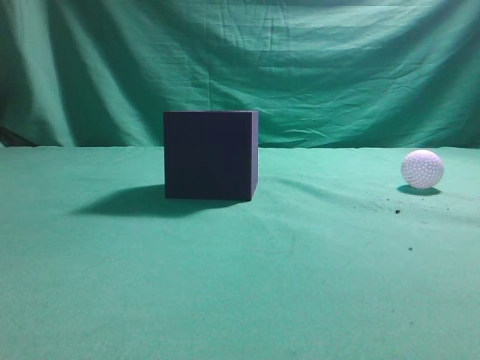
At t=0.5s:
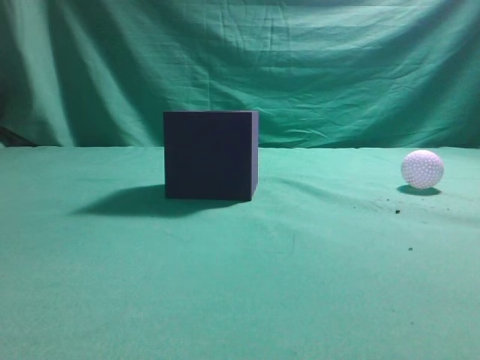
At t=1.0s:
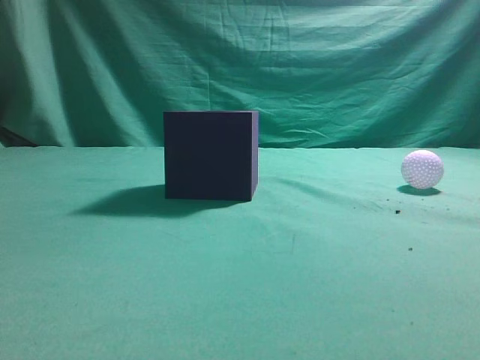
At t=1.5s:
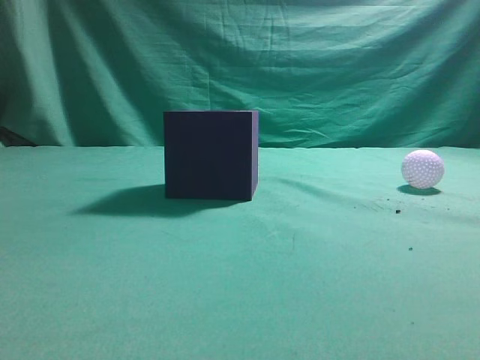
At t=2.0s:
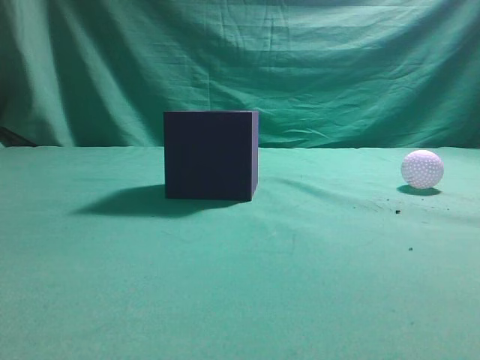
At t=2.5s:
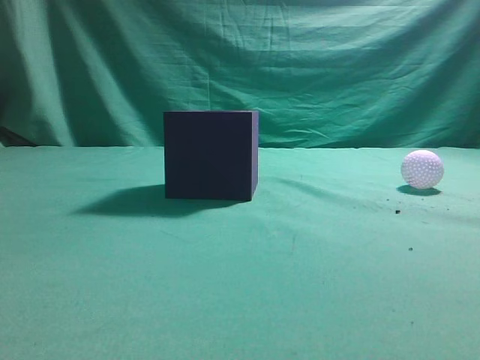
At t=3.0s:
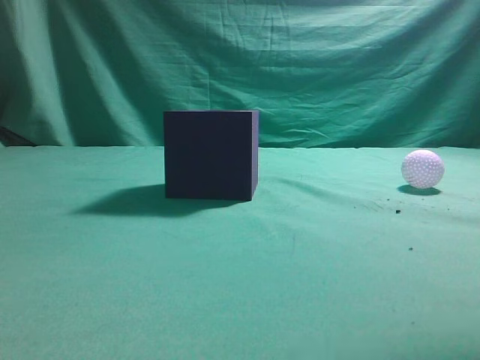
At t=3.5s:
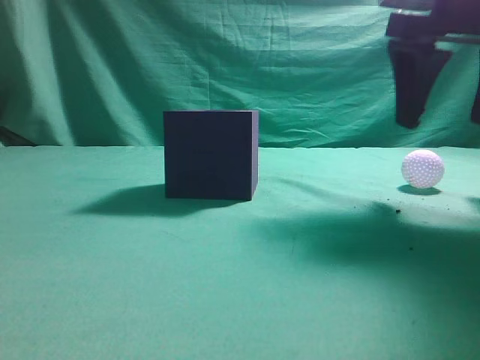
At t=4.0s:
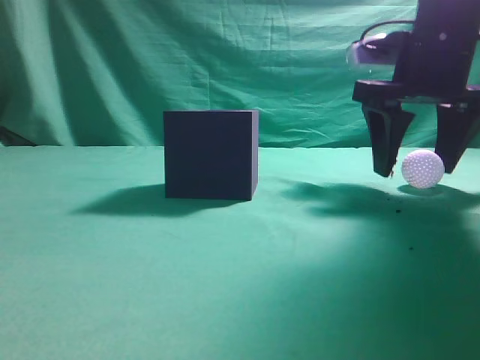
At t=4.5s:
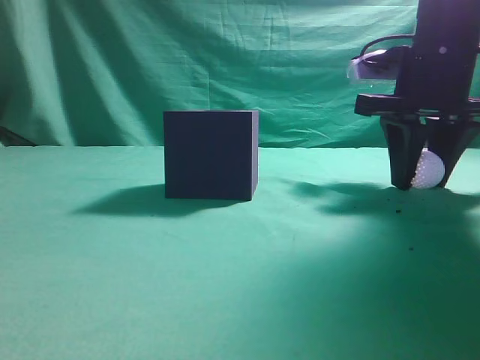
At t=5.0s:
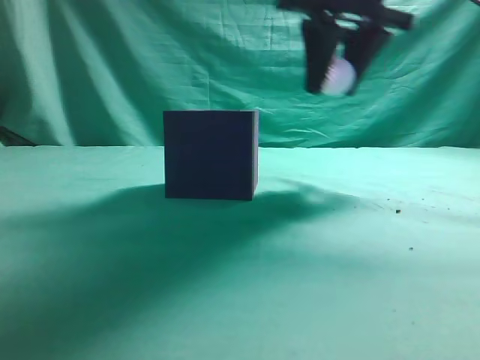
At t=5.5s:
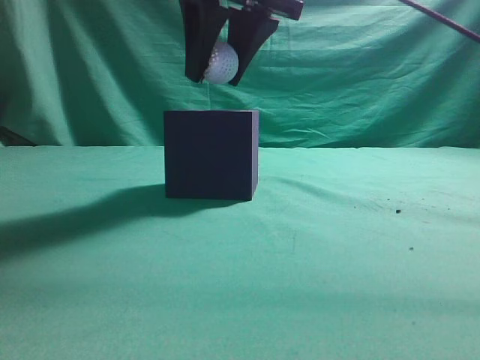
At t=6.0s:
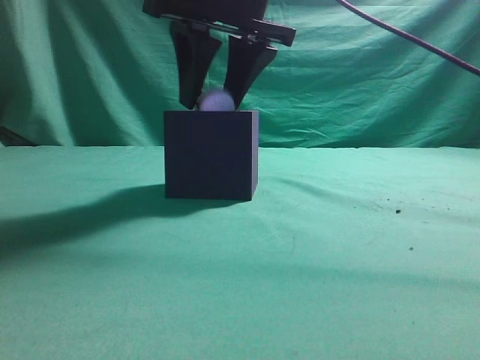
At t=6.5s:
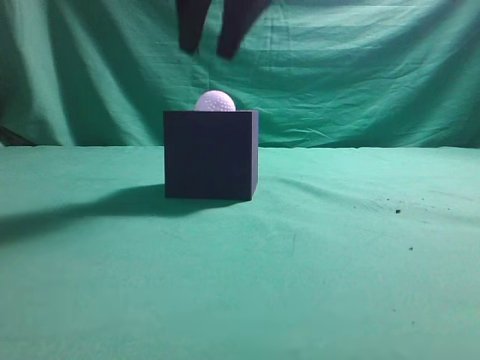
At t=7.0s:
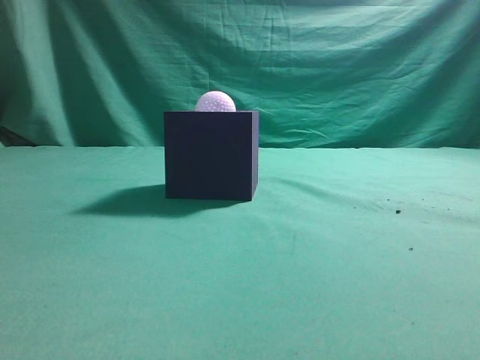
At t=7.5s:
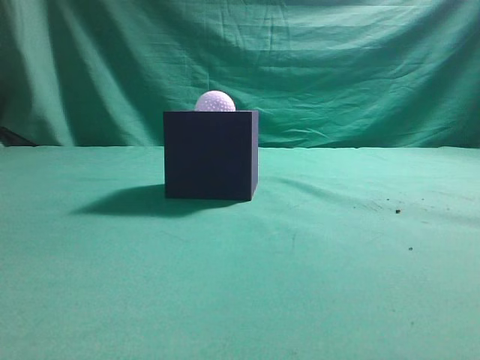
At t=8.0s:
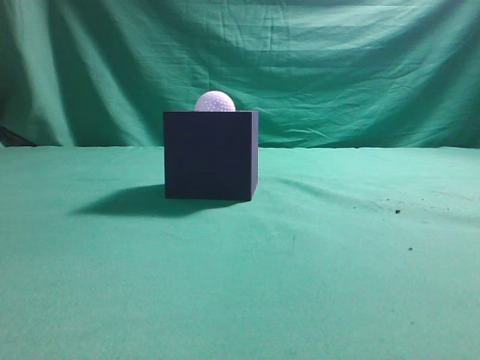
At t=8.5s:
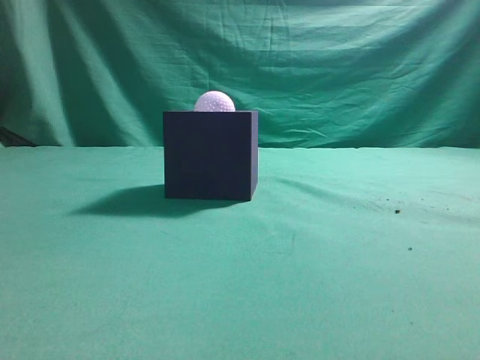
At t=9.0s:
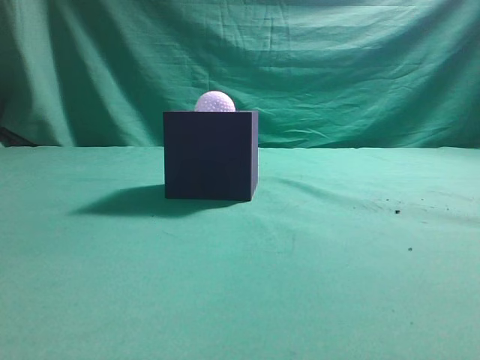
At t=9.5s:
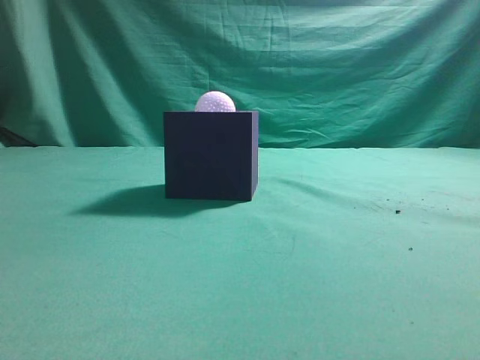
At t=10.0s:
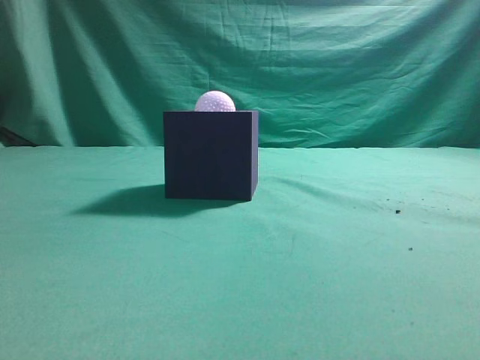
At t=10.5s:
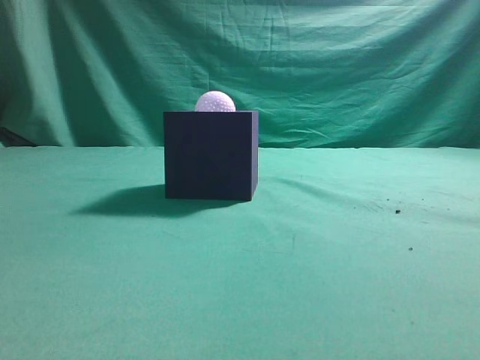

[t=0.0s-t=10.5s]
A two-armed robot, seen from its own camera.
Task of the whole recording: Pick up the ball and place it in the circular groove above the cube.
Step, t=0.0s to t=4.5s: Grasp the sphere on the table.
Step, t=5.0s to t=6.0s: Place the sphere into the sphere-shaped recess.
t=2.0s to t=4.0s: The right gripper goes some 30 cm forward, and opens its fingers.
t=4.0s to t=6.5s: The right gripper moves to the left and upward, approximately 20 cm, and closes.
t=6.5s to t=8.5s: The right gripper is displaced backward and to the right by roughly 35 cm, and closes.
